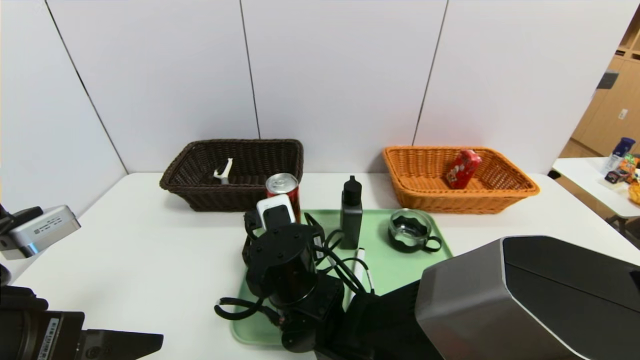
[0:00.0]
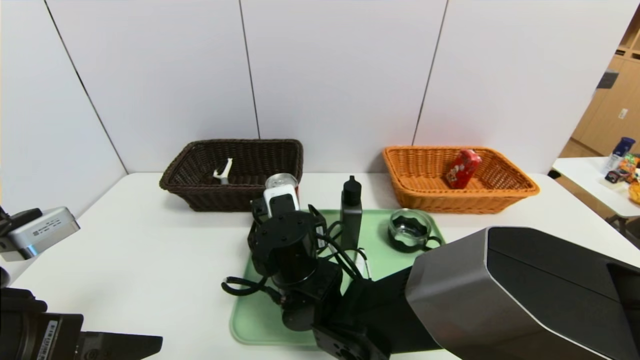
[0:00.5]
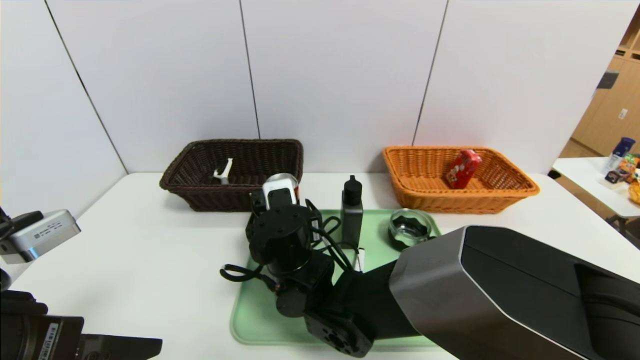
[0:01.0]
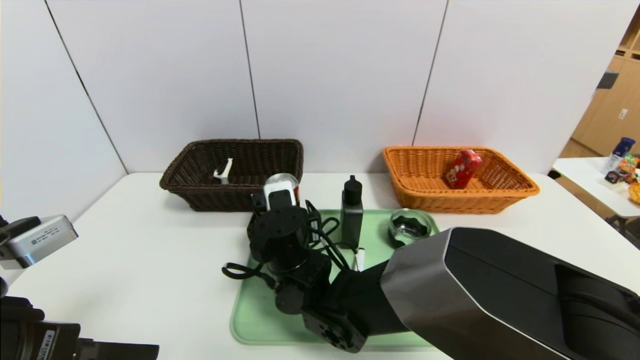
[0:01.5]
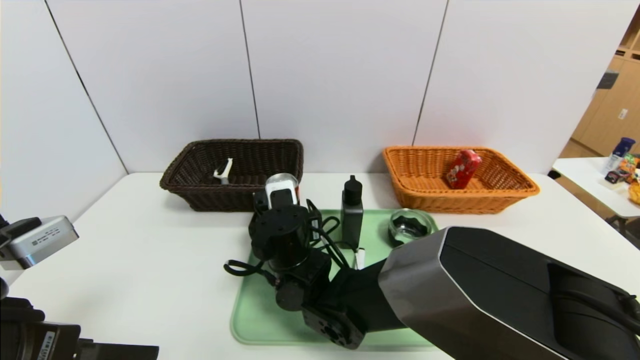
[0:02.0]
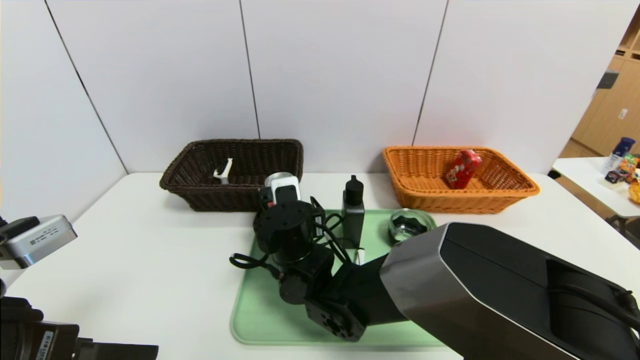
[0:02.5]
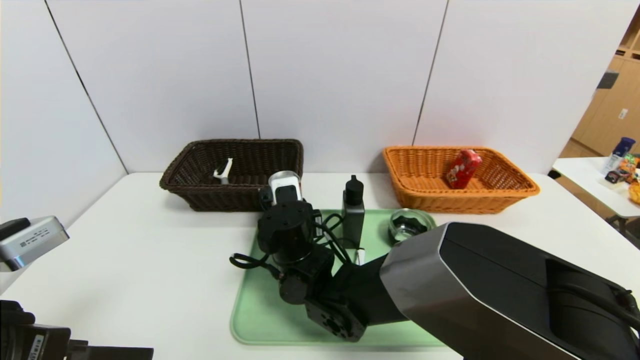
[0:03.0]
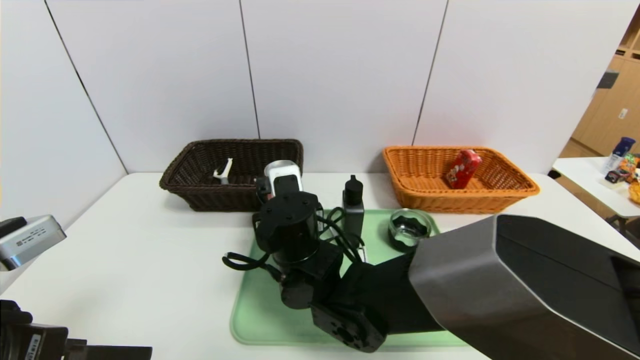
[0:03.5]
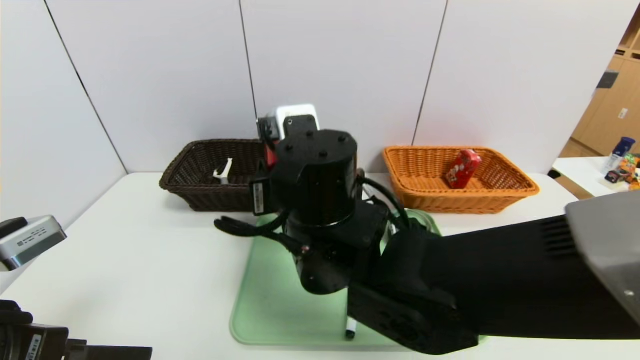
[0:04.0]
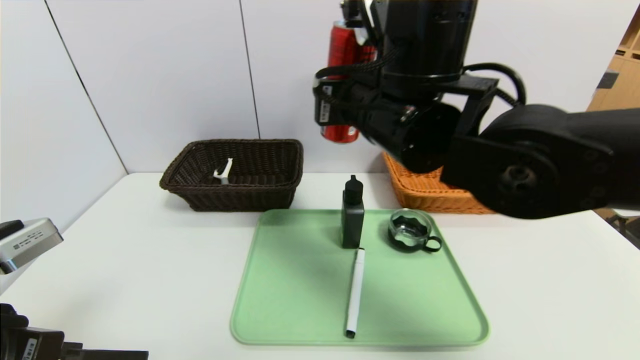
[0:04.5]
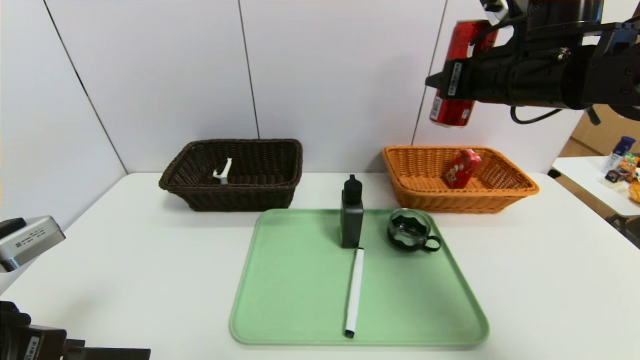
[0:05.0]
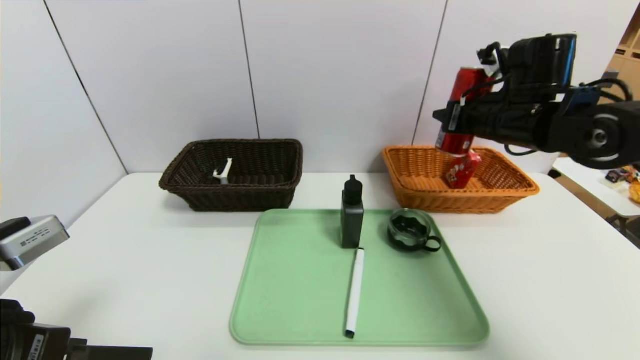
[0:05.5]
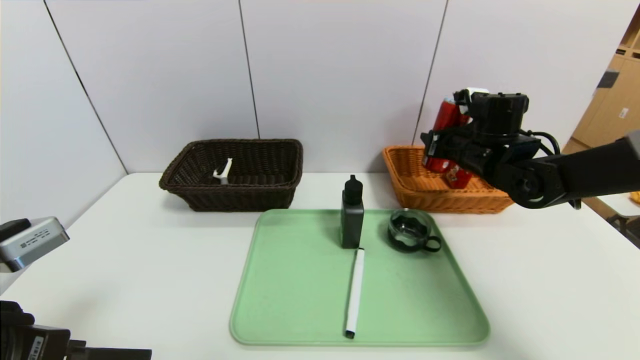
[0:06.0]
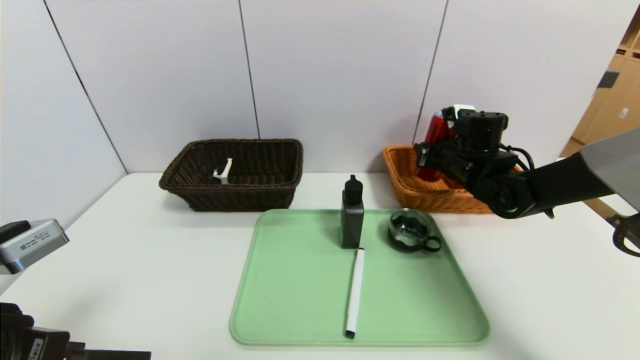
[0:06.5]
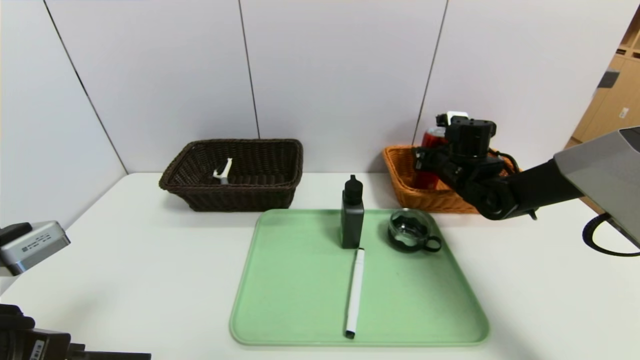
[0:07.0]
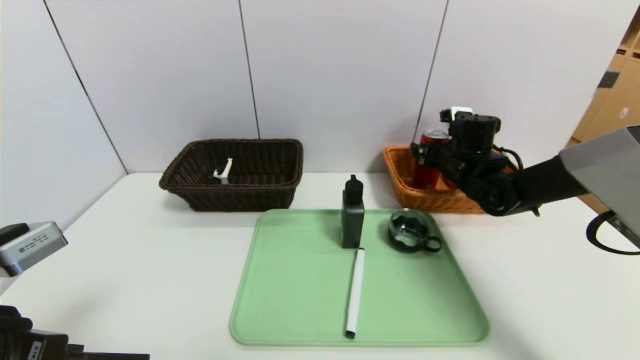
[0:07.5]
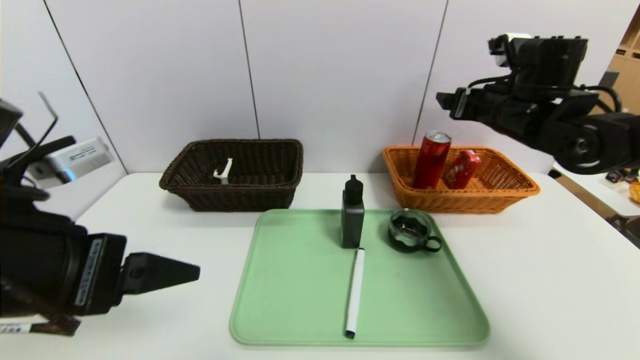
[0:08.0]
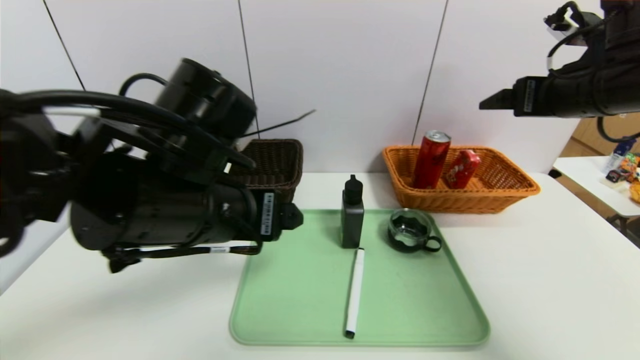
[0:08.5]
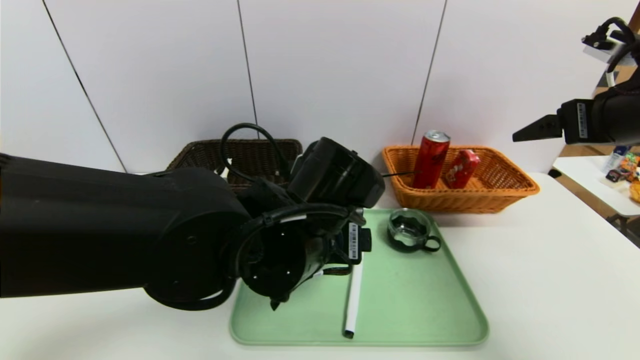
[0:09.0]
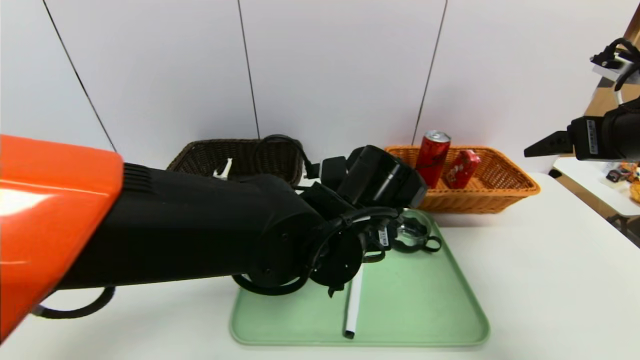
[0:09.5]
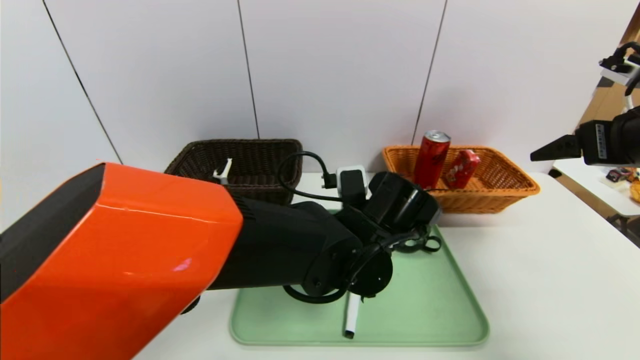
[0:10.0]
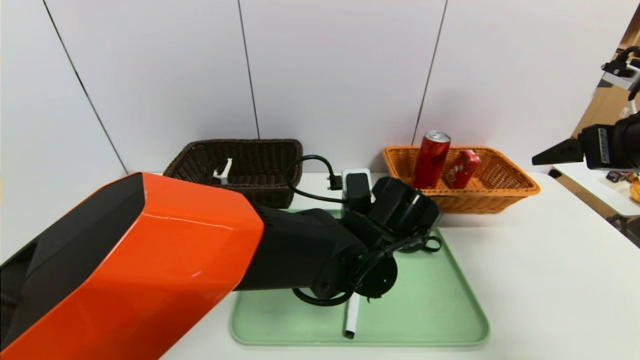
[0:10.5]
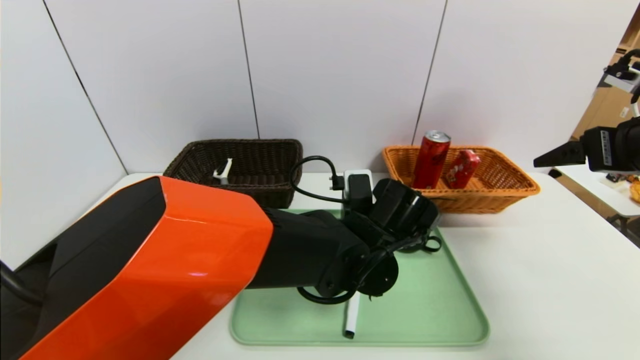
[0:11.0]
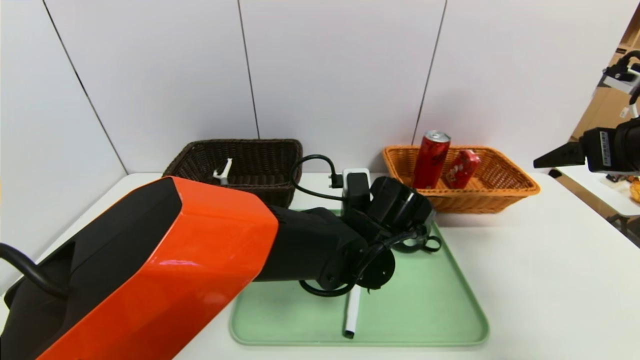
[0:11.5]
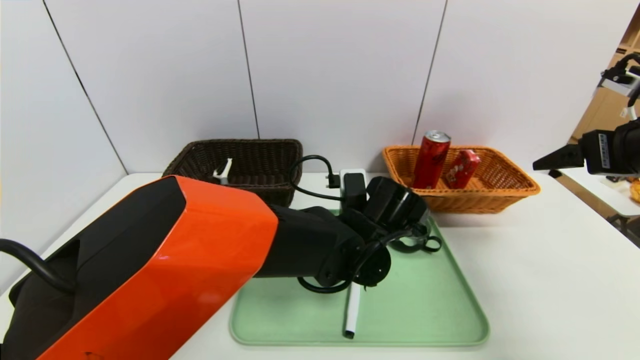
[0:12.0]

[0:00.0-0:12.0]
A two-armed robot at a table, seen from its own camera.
Task of the whole recording: place the food in the right basket with the right gripper, and place the non food items in the left basket with the left gripper.
Step, 0:00.0 to 0:07.0: Grasp the canned cola and put it in the right basket.
0:00.0 to 0:02.0: The right gripper is displaced forward by about 5 cm.
0:02.0 to 0:04.0: The right gripper moves upward and backward, about 15 cm, and closes its fingers.
0:04.0 to 0:06.0: The right gripper heads to the right and forward, covering approximately 30 cm.
0:06.0 to 0:08.0: The left gripper shifts by some 5 cm; the right gripper heads upward, covering approximately 10 cm, and opens up.
0:08.0 to 0:10.0: The right gripper moves backward and to the right, approximately 15 cm. Meanwhile the left gripper shifts some 30 cm to the right, forward and downward.
0:10.0 to 0:12.0: The left gripper closes up.

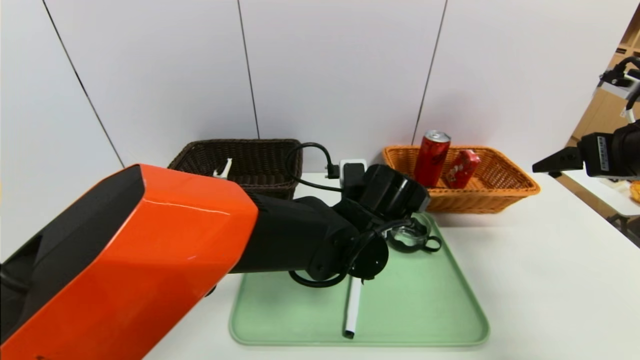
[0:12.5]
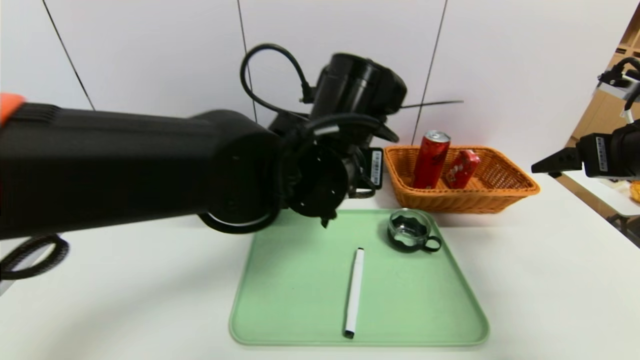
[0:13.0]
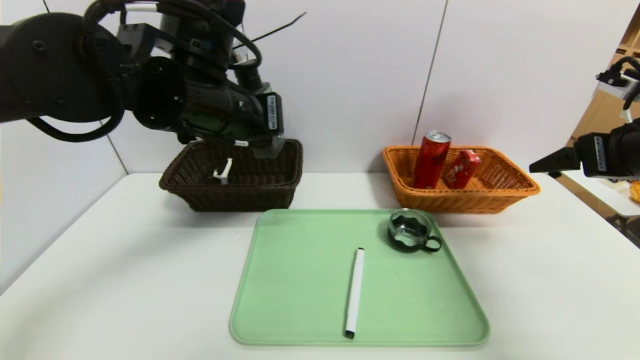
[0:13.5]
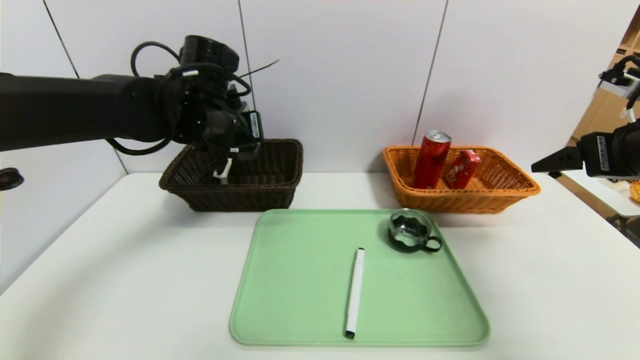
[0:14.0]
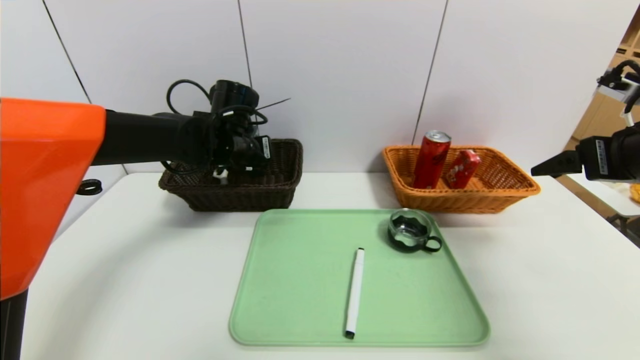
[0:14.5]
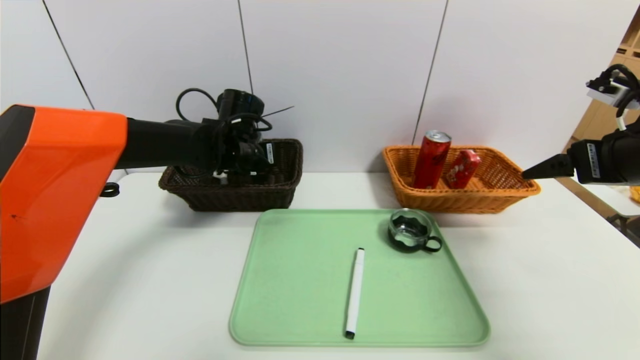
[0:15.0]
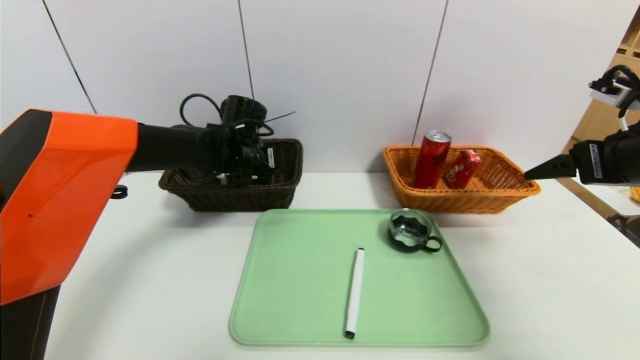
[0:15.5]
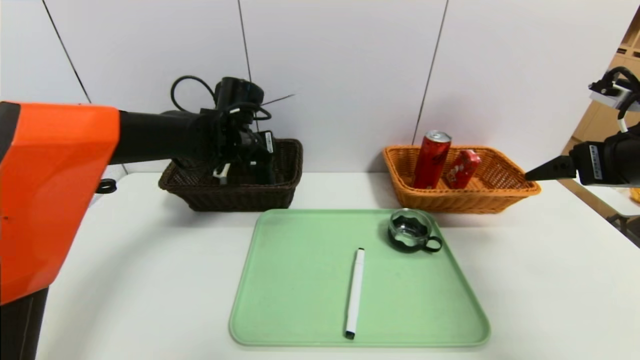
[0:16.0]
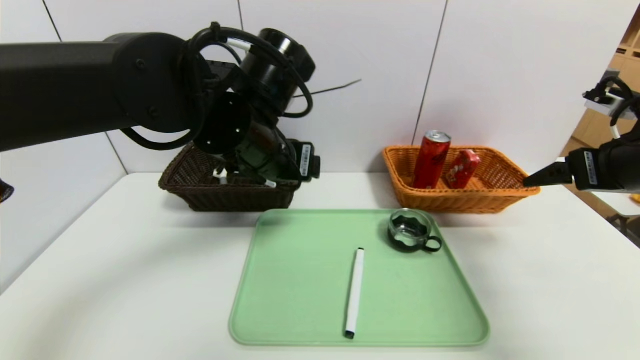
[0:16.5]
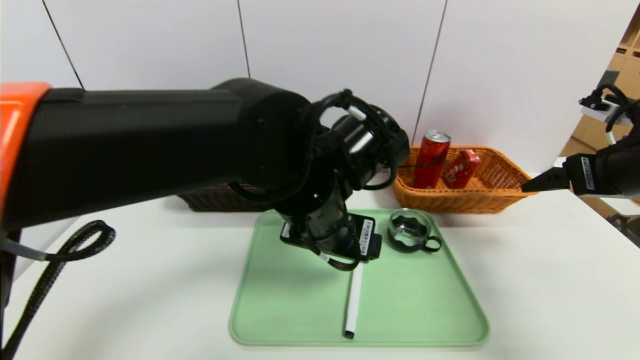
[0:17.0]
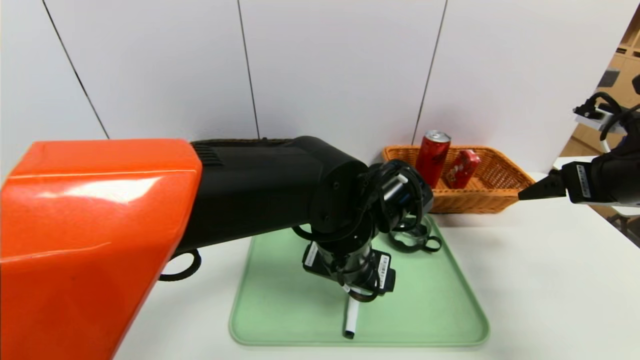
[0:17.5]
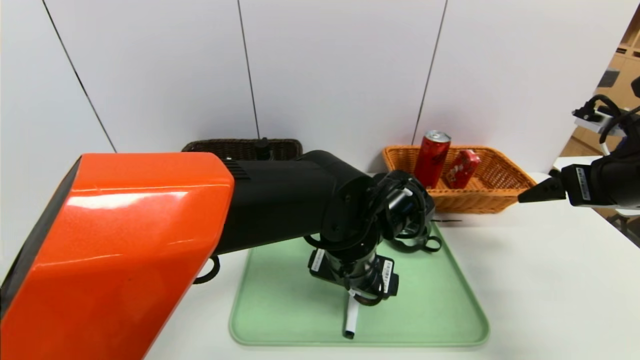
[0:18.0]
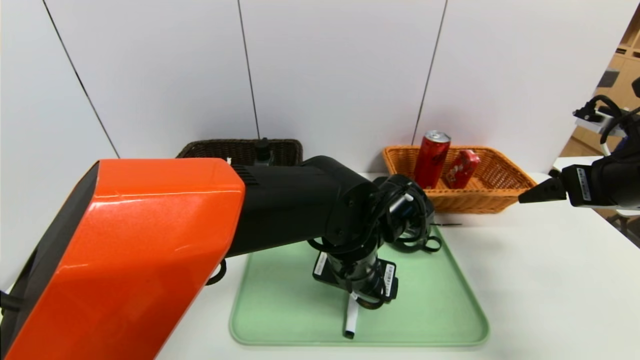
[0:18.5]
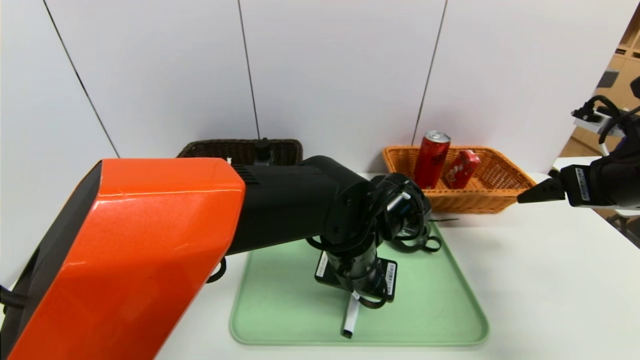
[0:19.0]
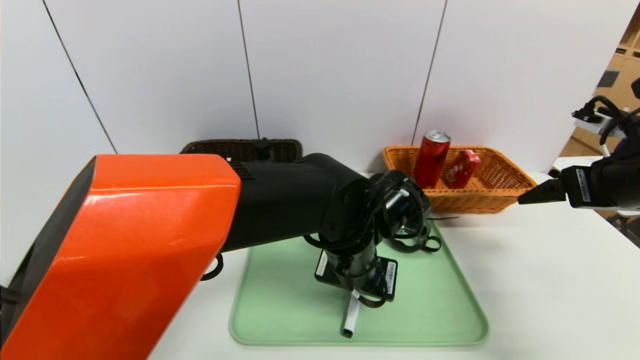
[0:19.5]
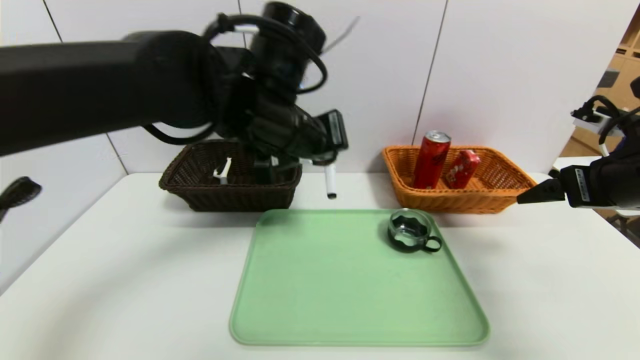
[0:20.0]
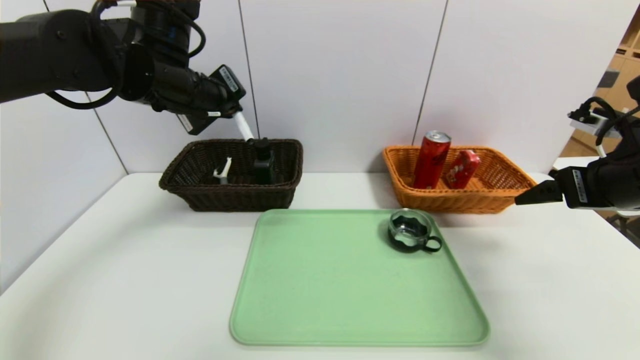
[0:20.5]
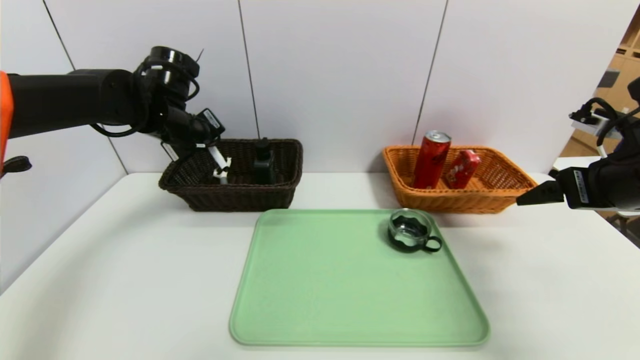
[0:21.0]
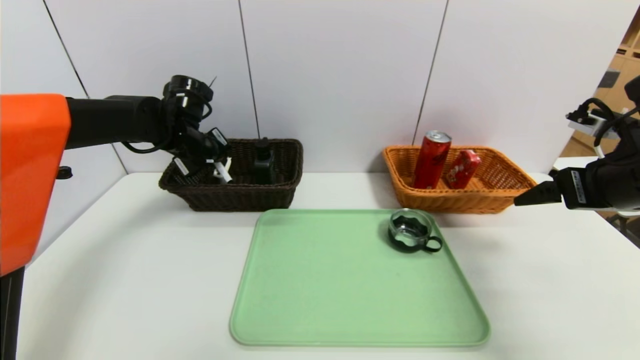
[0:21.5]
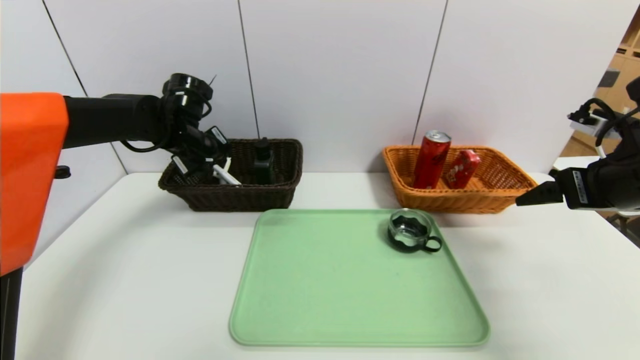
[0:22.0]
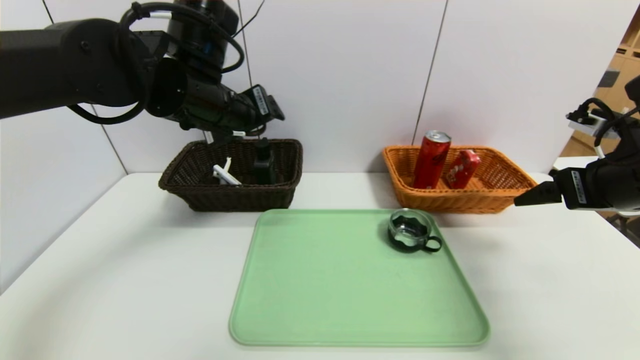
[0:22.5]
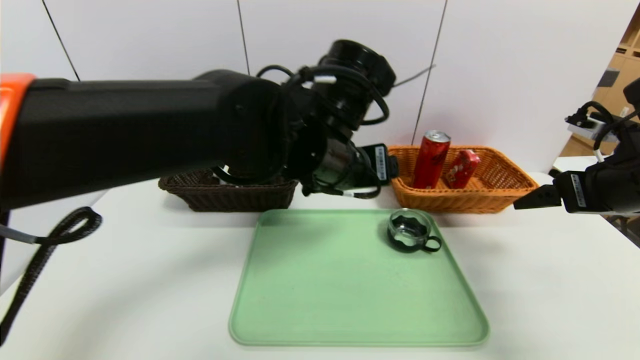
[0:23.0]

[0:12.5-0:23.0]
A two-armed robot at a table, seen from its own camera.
Task of the whole recording: place the food in the right basket with the right gripper, and place the non food items in the left basket with the left gripper.
Step, 0:12.5 to 0:15.5: Grasp the hard cleanser and put it in the left basket.
Step, 0:16.0 to 0:21.5: Grasp the black marker and put it in the left basket.
0:12.5 to 0:14.5: The left gripper shifts about 25 cm to the left and forward.
0:14.5 to 0:16.5: The left gripper travels backward, to the right and upward by roughly 15 cm, and opens its fingers.
0:16.5 to 0:19.0: The left gripper moves downward and to the right, approximately 15 cm, and closes its fingers.
0:19.0 to 0:21.0: The left gripper travels to the left and forward by roughly 30 cm.
0:21.0 to 0:23.0: The left gripper goes approximately 25 cm to the right and backward, and opens its fingers.
